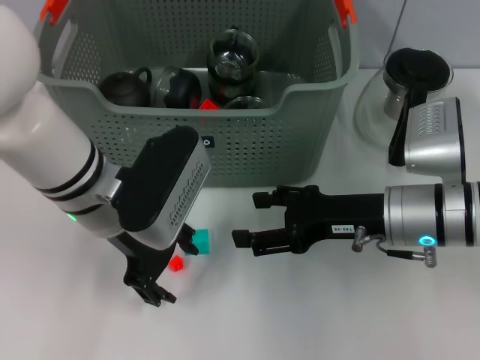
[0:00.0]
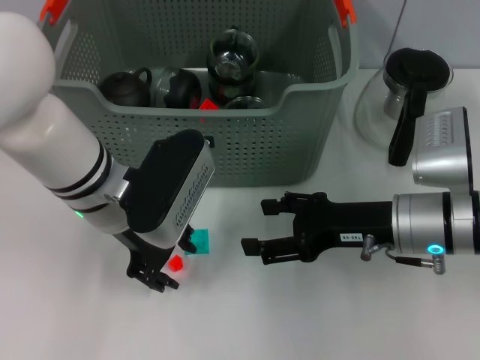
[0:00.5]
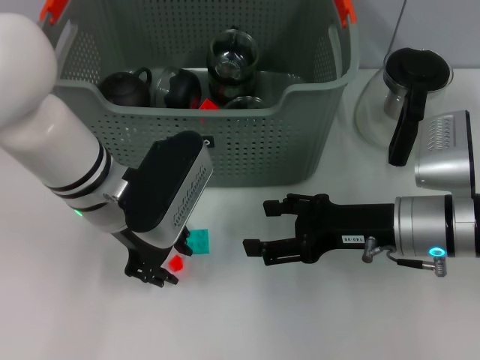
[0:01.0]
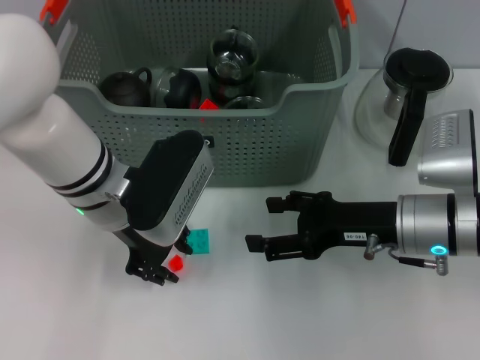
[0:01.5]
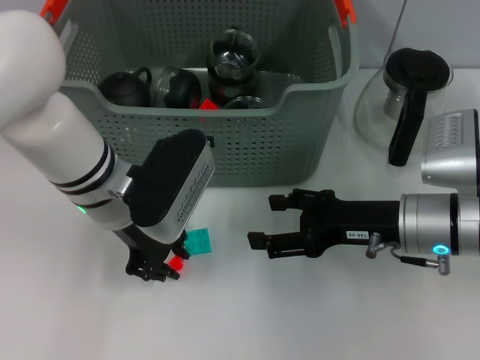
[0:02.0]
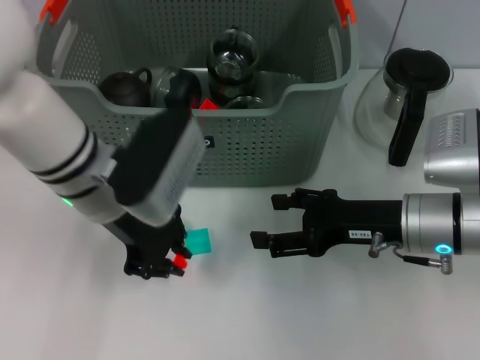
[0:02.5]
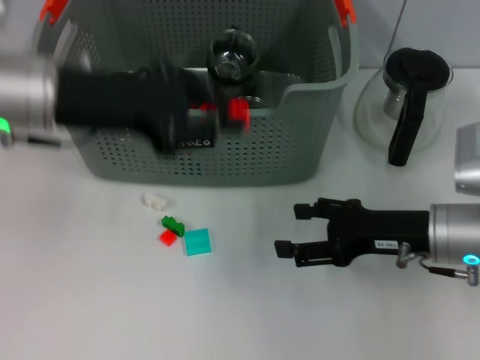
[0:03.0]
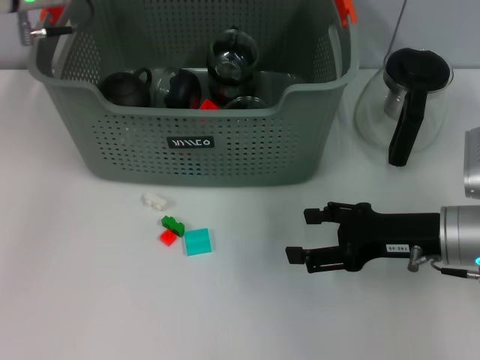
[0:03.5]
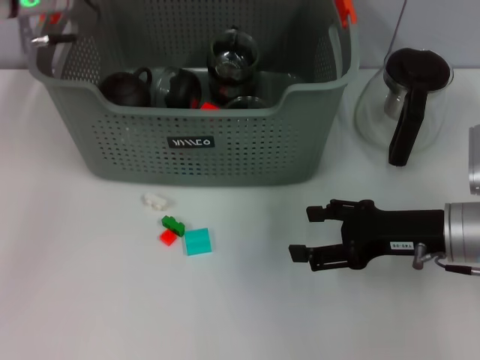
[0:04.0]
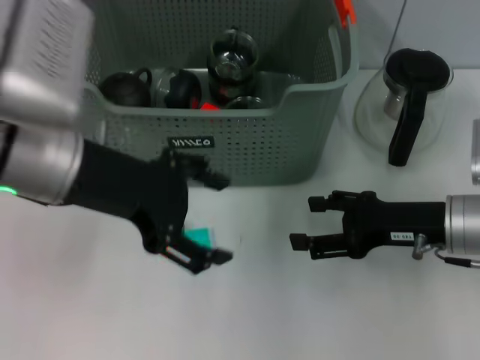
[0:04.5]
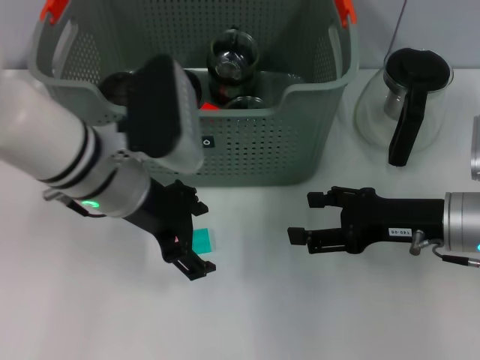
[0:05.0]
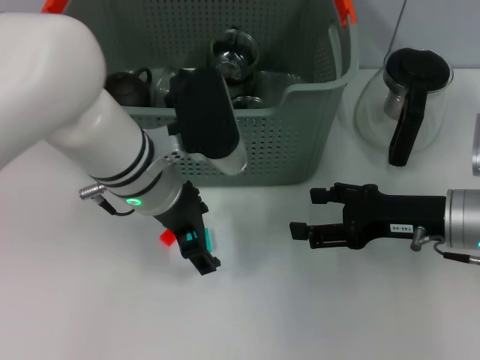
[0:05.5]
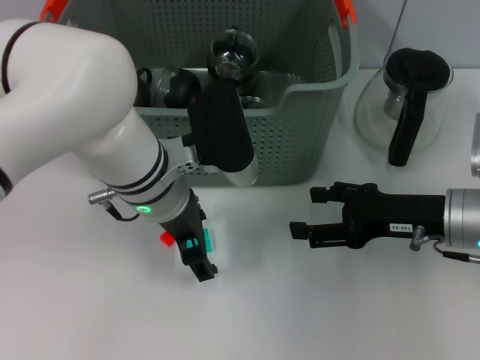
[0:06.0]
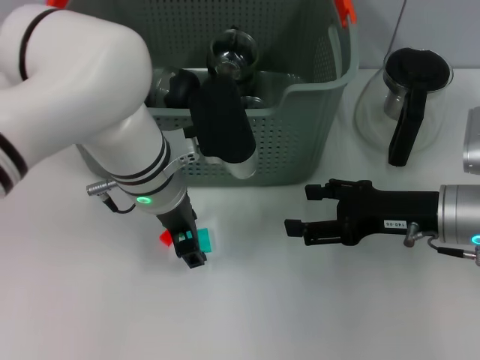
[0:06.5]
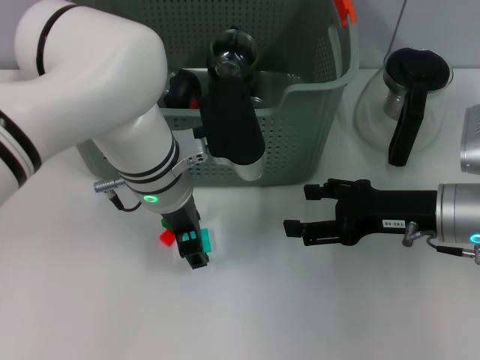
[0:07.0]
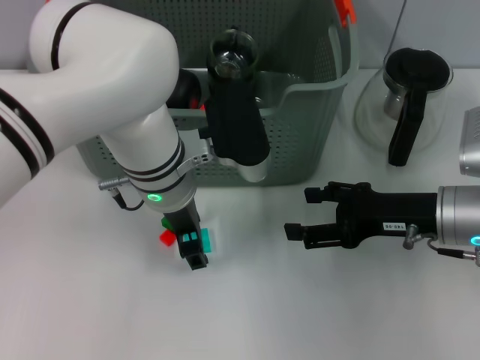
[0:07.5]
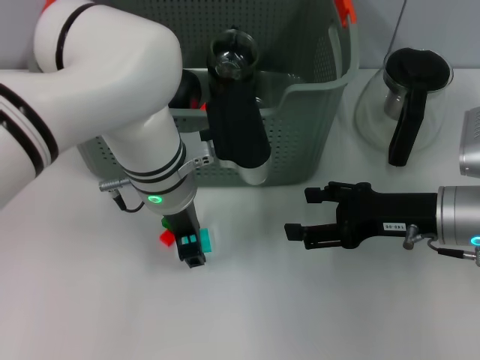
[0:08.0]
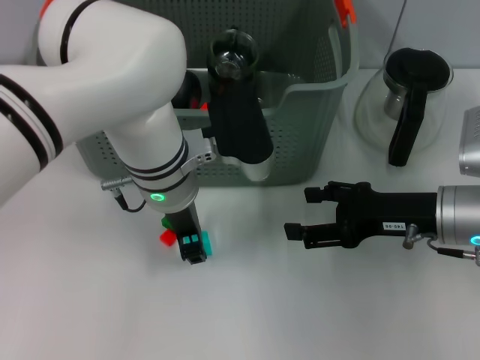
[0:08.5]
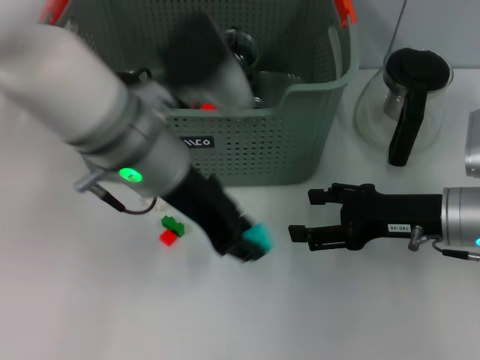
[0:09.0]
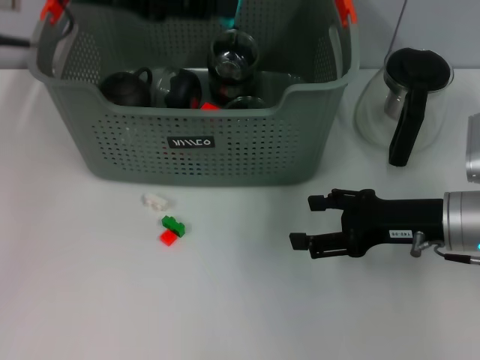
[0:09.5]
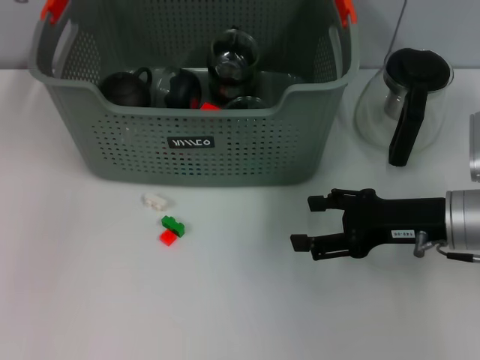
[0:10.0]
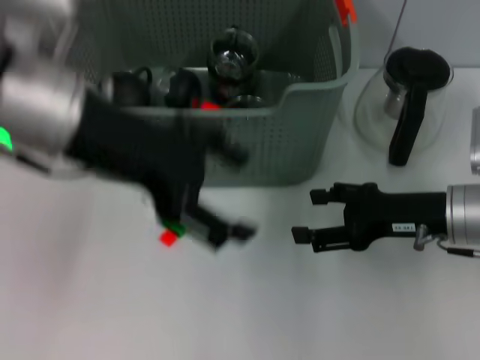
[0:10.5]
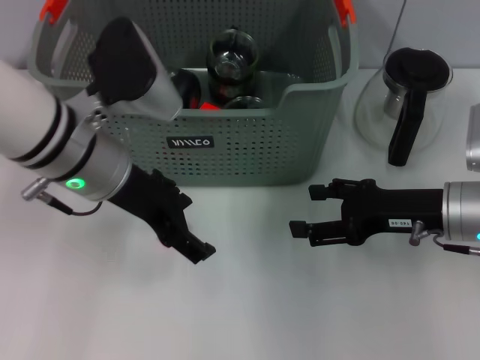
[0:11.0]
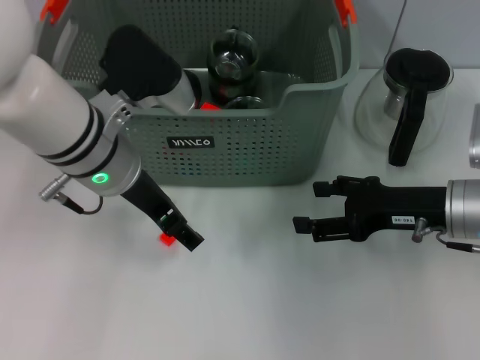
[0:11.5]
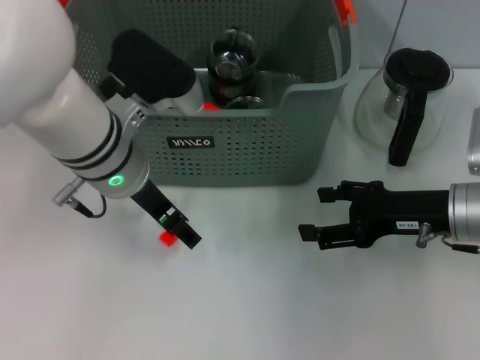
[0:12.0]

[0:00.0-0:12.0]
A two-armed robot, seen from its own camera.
Task of the whole recording: pick up the teacup on the table and place it into the storage bin, pick up the block on the table and place it into the storage bin.
Step, 0:00.0 to 0:02.0: Grasp the orange block with left gripper.
Step, 0:02.5 to 0:03.5: Place the orange block in the storage box with left gripper.
Step, 0:04.0 to 0:08.5: Grasp the light blue block with left gripper.
Step, 0:09.0 to 0:09.5: Place the light blue block in the storage box with left gripper.
0:00.0 to 0:02.0: The left gripper closes its fingers.
0:02.0 to 0:04.0: The left gripper moves upward, to the left and forward, approximately 15 cm.
0:04.0 to 0:06.0: The left gripper heads downward, to the right and backward, covering some 20 cm.
0:06.0 to 0:08.0: There are only small adjustments of the grippers.
0:08.0 to 0:10.0: The left gripper moves upward and to the left, approximately 20 cm.
0:10.0 to 0:12.0: The left gripper moves downward, backward and to the right, approximately 15 cm.

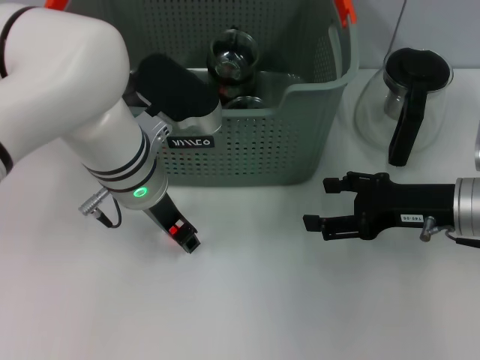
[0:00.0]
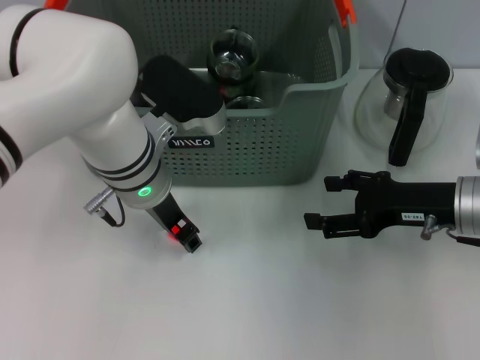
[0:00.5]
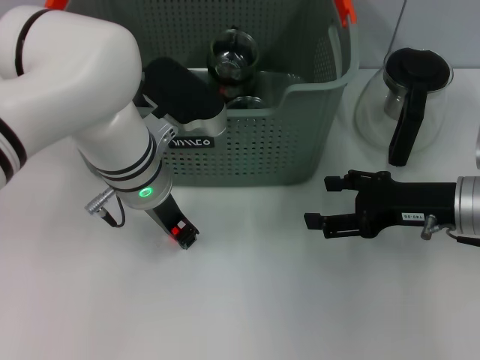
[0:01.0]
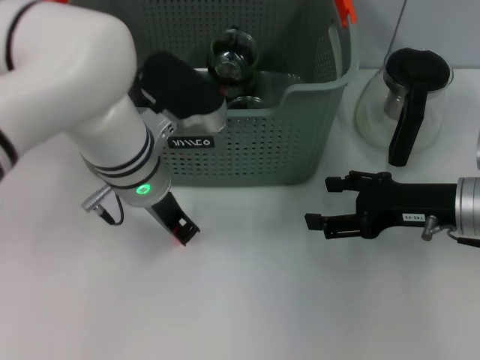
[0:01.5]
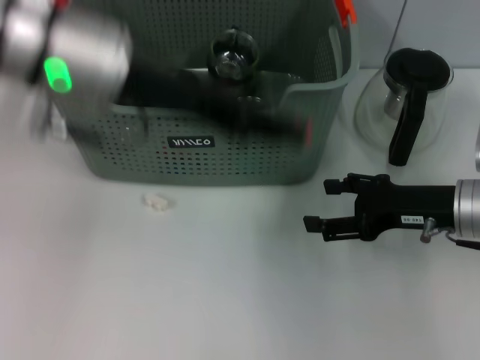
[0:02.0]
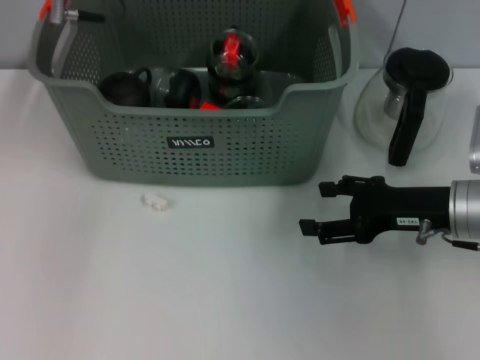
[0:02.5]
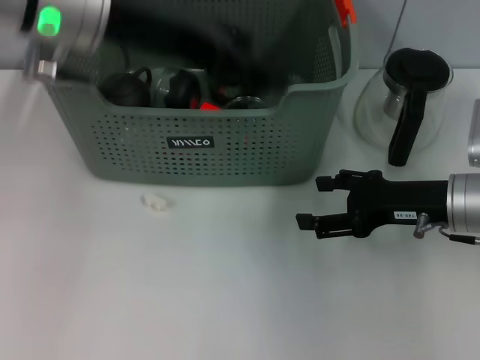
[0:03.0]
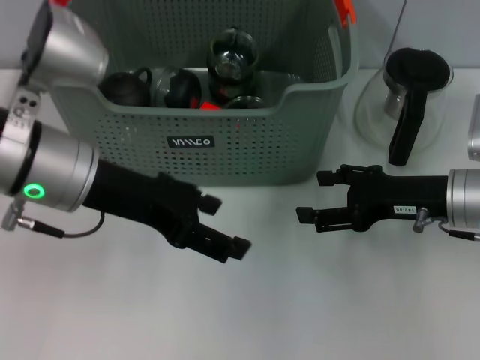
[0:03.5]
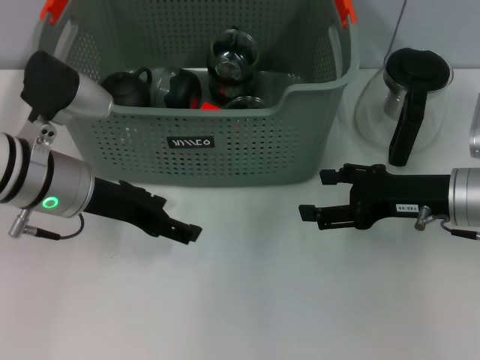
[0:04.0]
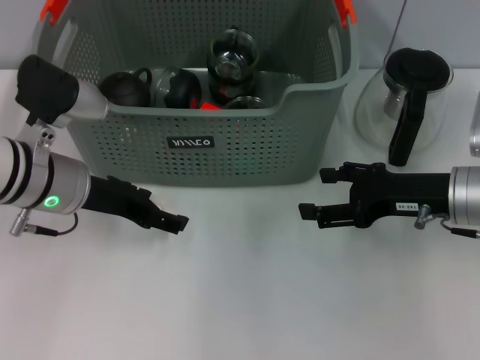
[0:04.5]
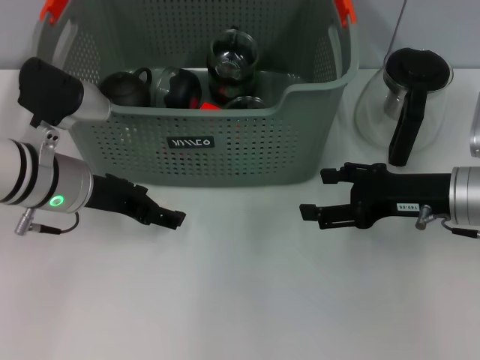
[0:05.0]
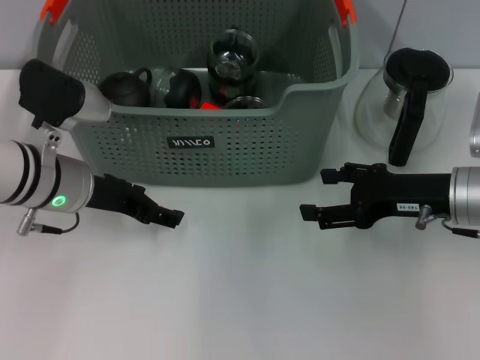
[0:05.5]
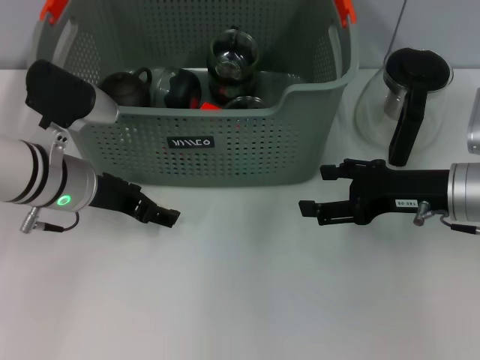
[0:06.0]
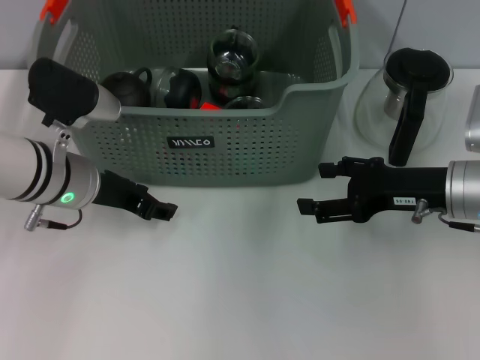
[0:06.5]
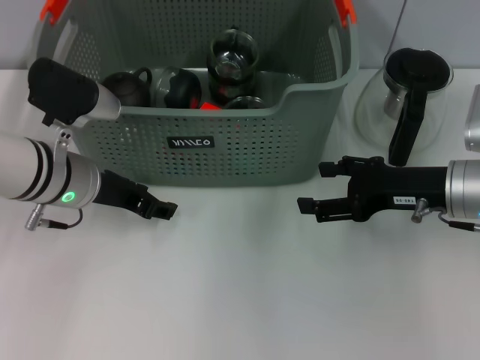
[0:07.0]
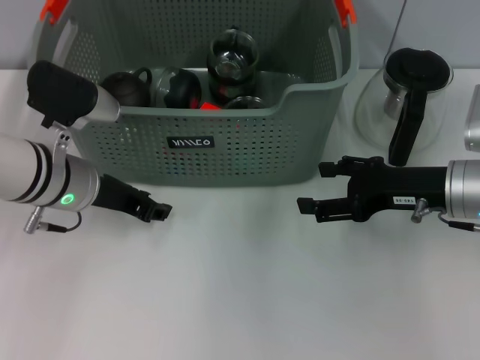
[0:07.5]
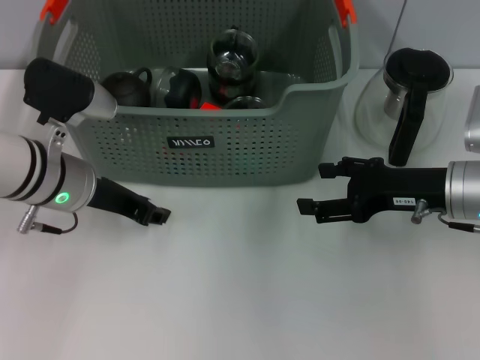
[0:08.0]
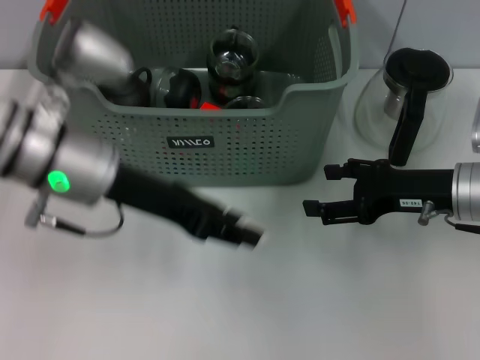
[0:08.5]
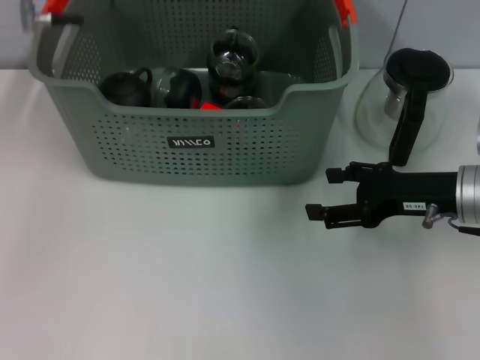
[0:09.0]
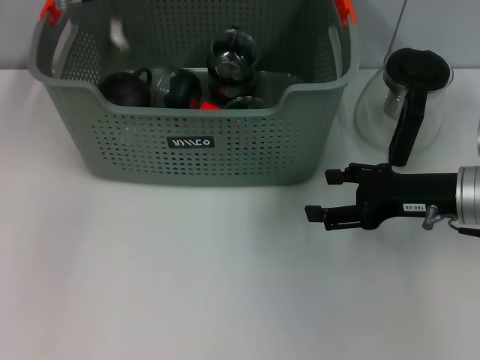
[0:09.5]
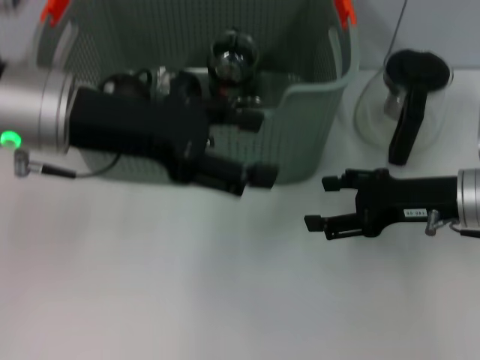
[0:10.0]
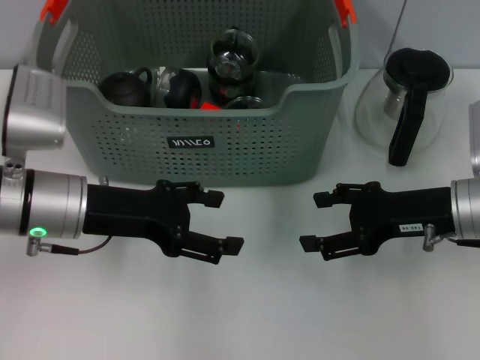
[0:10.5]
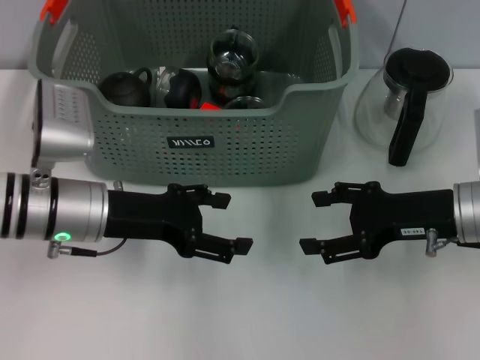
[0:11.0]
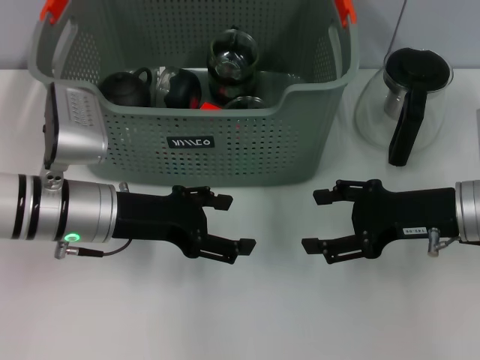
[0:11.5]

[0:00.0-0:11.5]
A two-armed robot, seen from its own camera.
Task of the whole recording: pick up the teacup on the table and place it into the storage bin, pick up the block on the table and place it into the storage bin.
Step, 0:01.5 to 0:02.5: Place the orange block in the storage box with left gripper.
Step, 0:03.0 to 0:07.0: Grasp the white block with left gripper.
Step, 0:07.5 to 0:09.5: Place the white block in the storage box with left gripper.
0:00.0 to 0:02.0: The left gripper heads upward, covering roughly 15 cm.
0:02.0 to 0:04.0: The left gripper heads downward, covering about 15 cm, and opens its fingers.
0:04.0 to 0:06.0: The grippers move only a little.
0:06.0 to 0:07.5: Both grippers stay put.
0:07.5 to 0:09.5: The left gripper is displaced upward and forward by about 20 cm.
0:09.5 to 0:11.5: The left gripper goes roughly 20 cm downward and backward, and opens its fingers.
